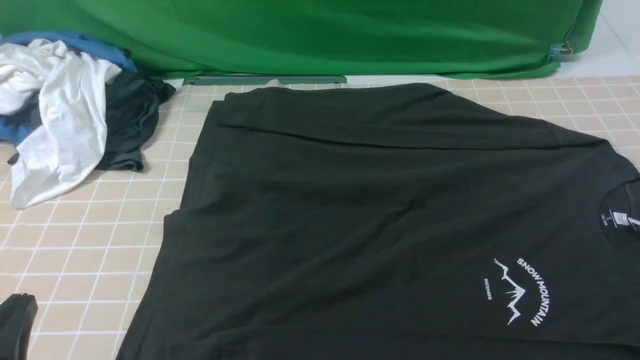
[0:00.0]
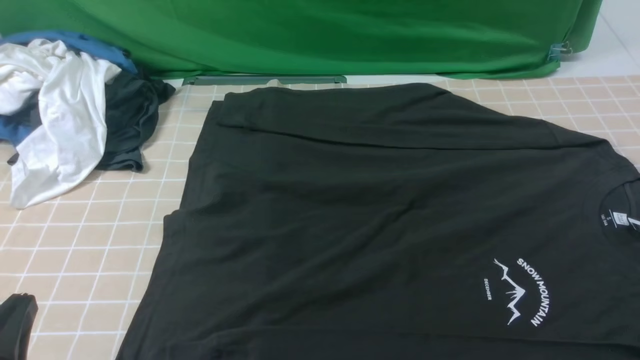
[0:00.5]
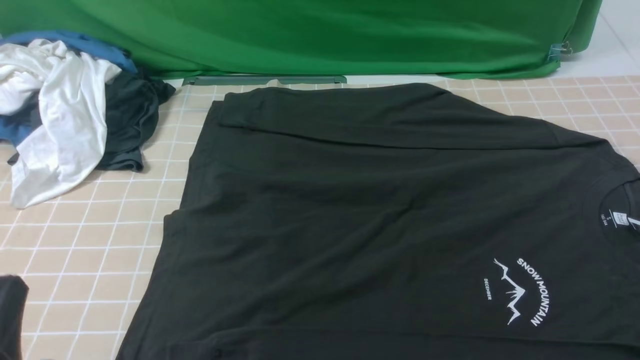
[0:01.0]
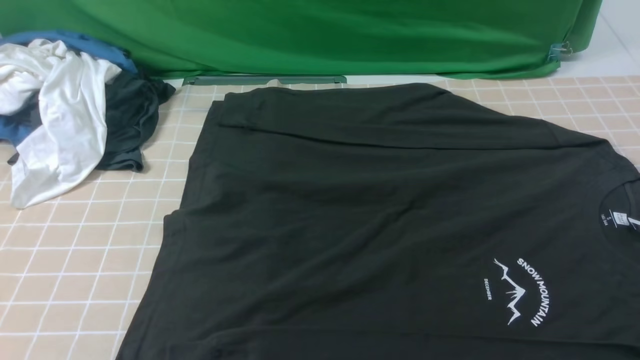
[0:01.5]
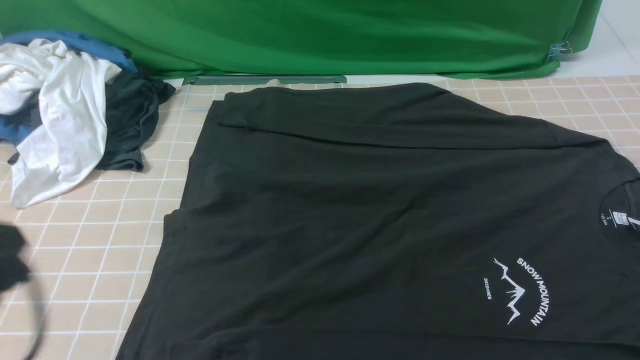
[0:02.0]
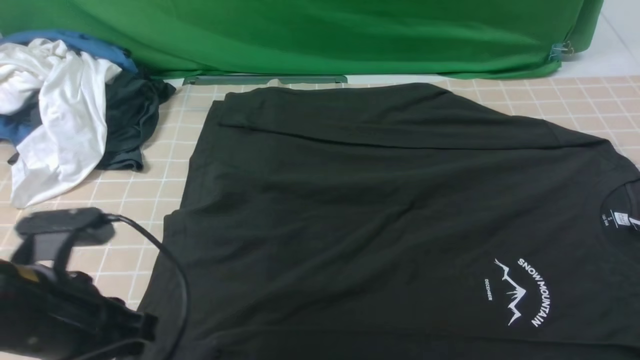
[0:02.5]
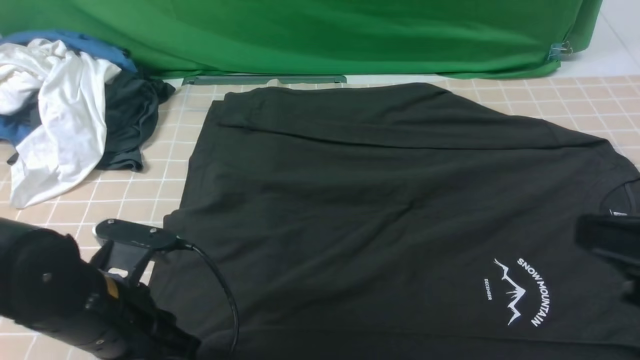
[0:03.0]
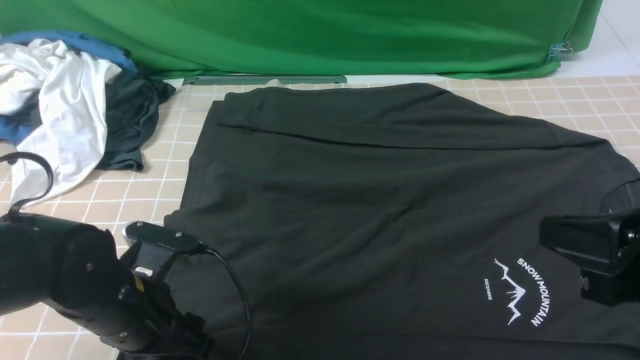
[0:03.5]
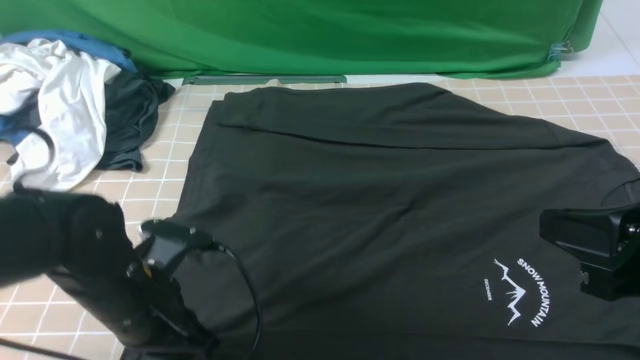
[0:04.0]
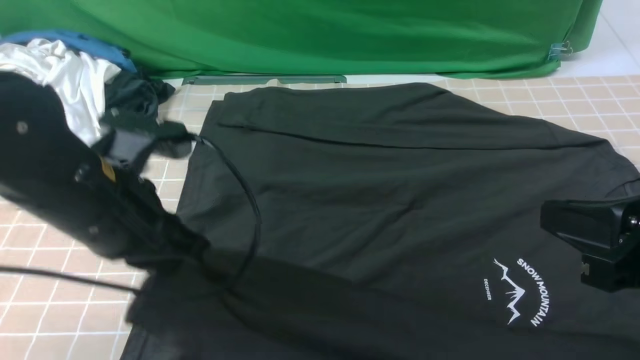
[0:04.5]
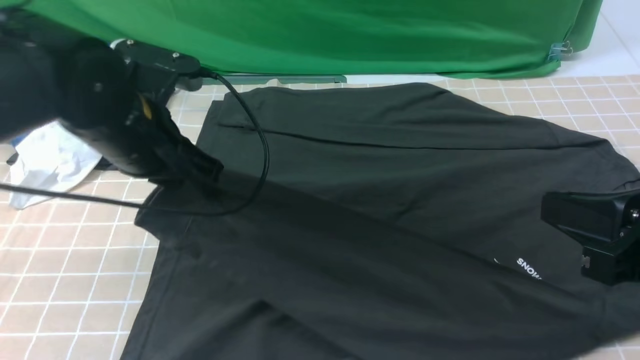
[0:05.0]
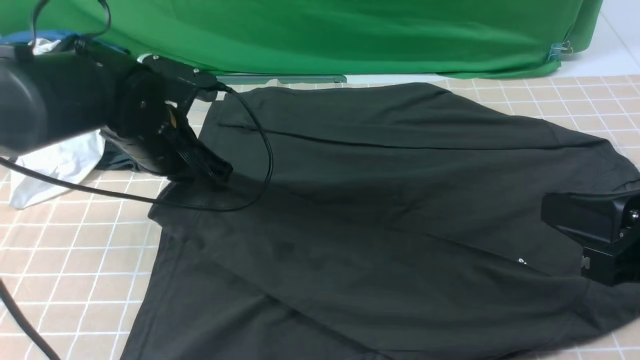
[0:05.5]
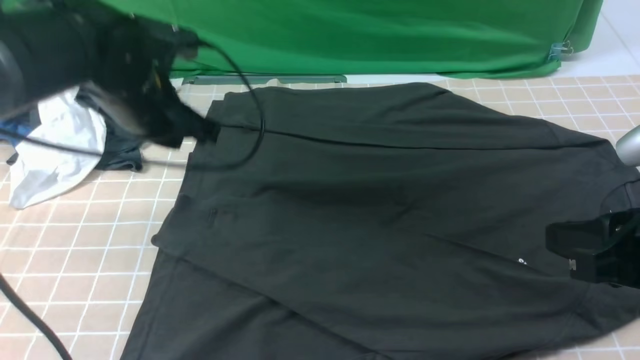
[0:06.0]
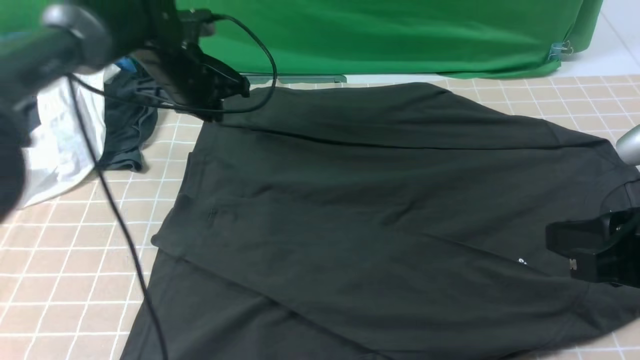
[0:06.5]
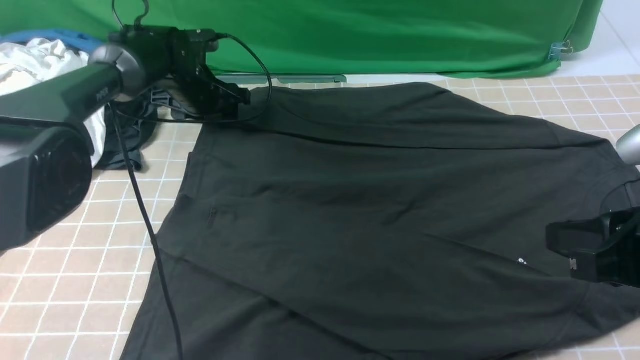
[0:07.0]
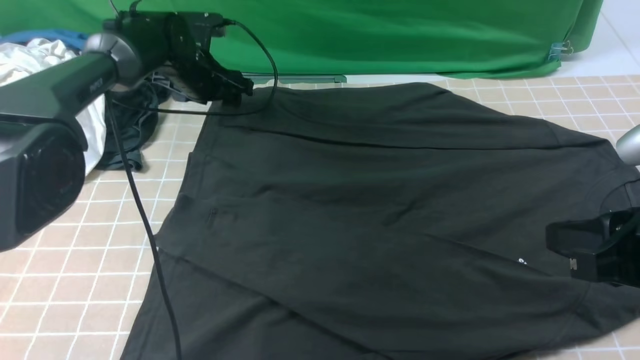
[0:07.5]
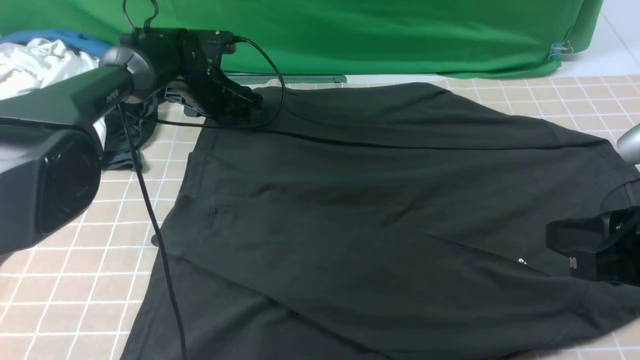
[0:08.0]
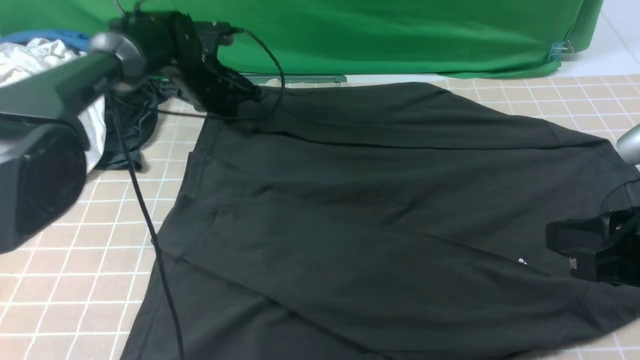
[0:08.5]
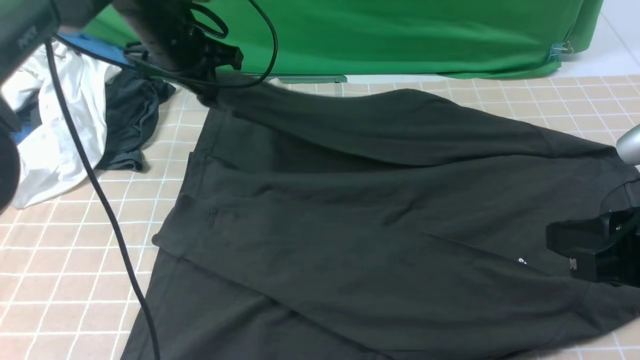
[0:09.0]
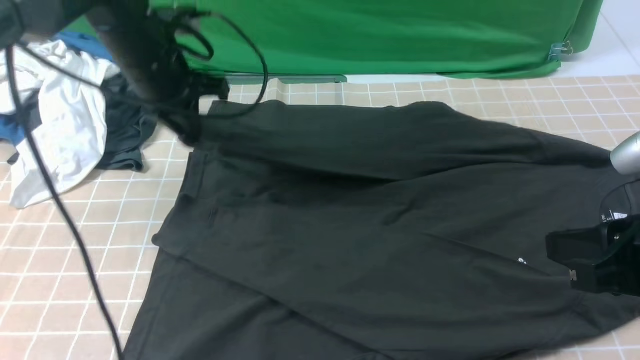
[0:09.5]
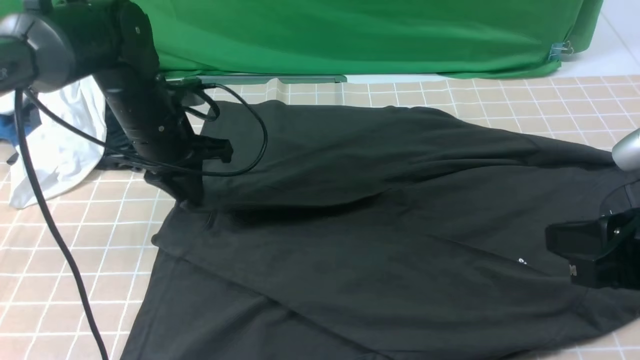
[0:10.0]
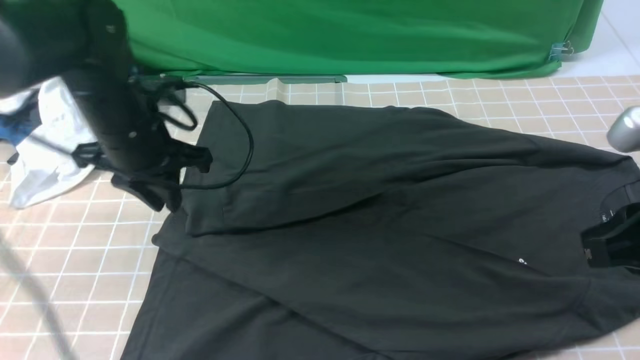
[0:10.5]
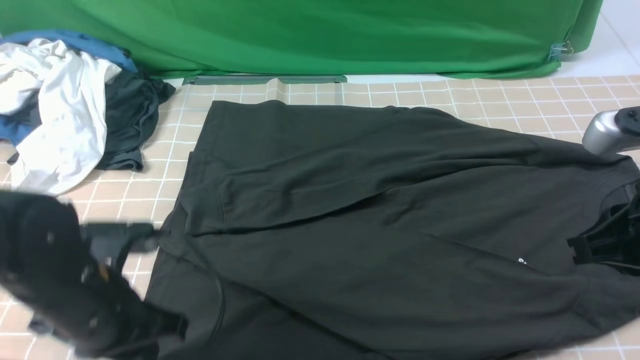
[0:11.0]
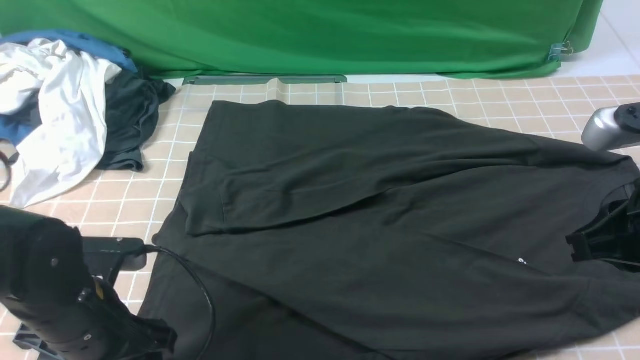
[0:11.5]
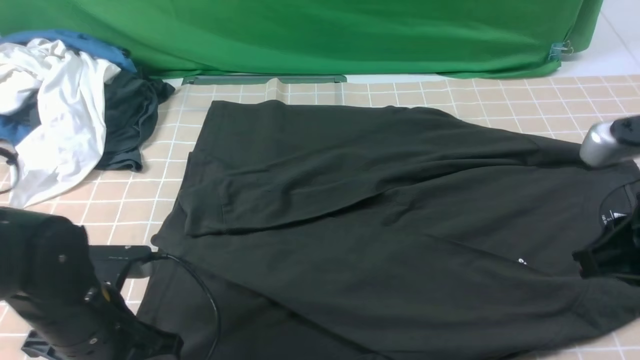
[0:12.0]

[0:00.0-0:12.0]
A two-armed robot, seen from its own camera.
Step, 0.0 to 3.5 s: use the left arm to clamp the cuff closest to it.
Step, 4.0 to 5.5 s: use the left arm to drag and place the cuff at the centered position on the left edge of the fabric.
Step, 6.0 to 8.0 s: use the left arm to clamp the cuff farthest from it.
Step, 8.5 to 10.0 s: use the left arm to drag and drop the cuff onto the cuff closest to the left arm.
0.0 to 2.0 s: The left gripper moves upward, approximately 10 cm.
2.0 to 4.0 s: The right gripper shifts approximately 15 cm upward, forward and to the left, and closes. The left gripper is displaced forward, downward and to the right by approximately 15 cm, and opens and closes again.
4.0 to 6.0 s: The left gripper shifts about 20 cm forward and upward.
6.0 to 8.0 s: The left gripper travels forward and downward by about 20 cm, and opens.
8.0 to 10.0 s: The left gripper travels backward and upward by about 15 cm, and closes.
10.0 to 12.0 s: The left gripper moves backward, about 20 cm, and opens, then closes again.

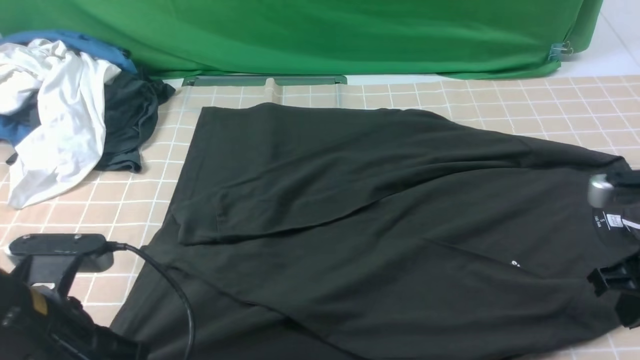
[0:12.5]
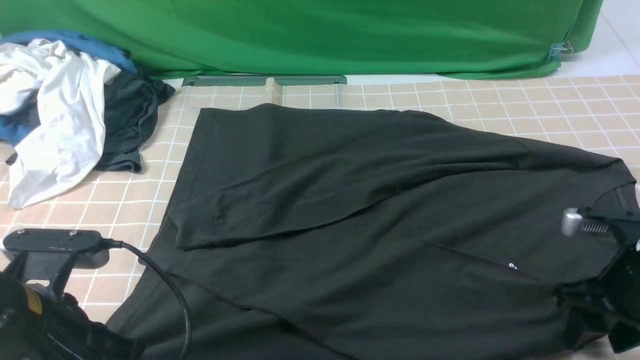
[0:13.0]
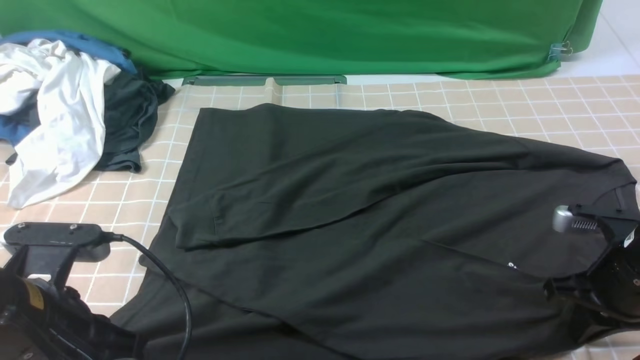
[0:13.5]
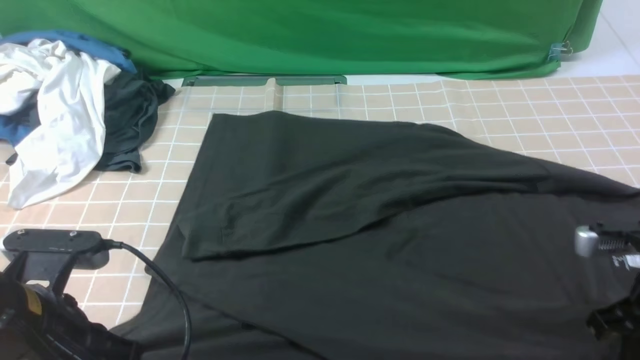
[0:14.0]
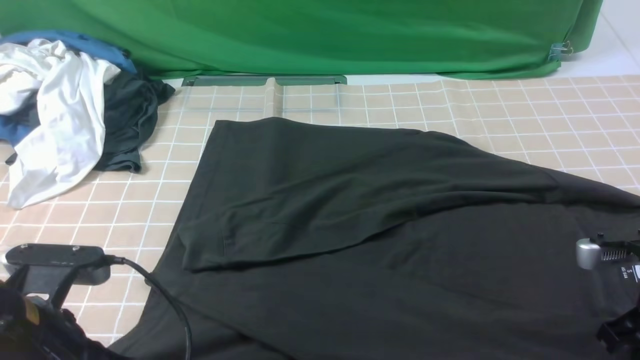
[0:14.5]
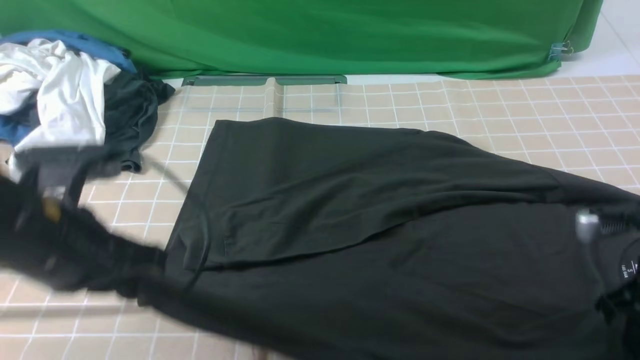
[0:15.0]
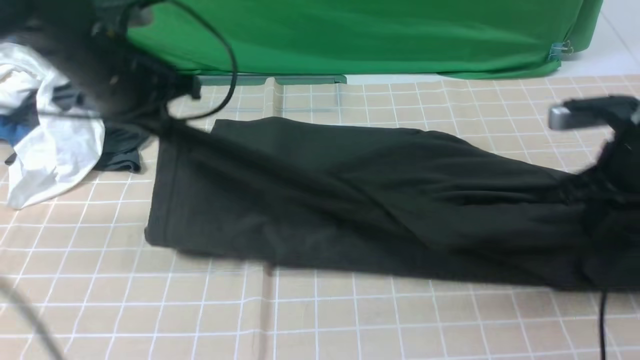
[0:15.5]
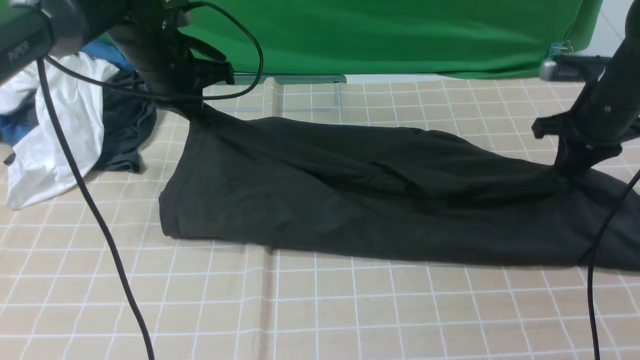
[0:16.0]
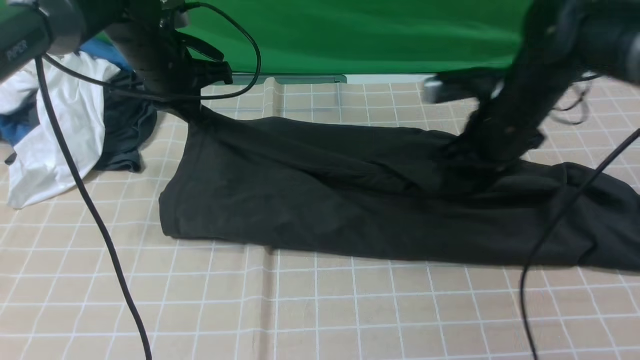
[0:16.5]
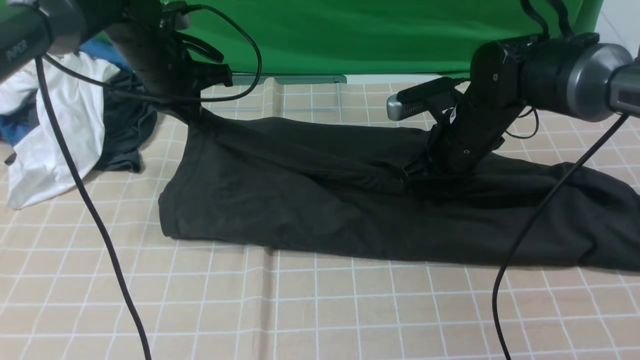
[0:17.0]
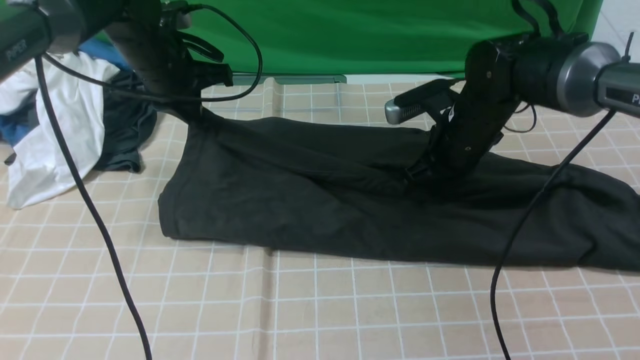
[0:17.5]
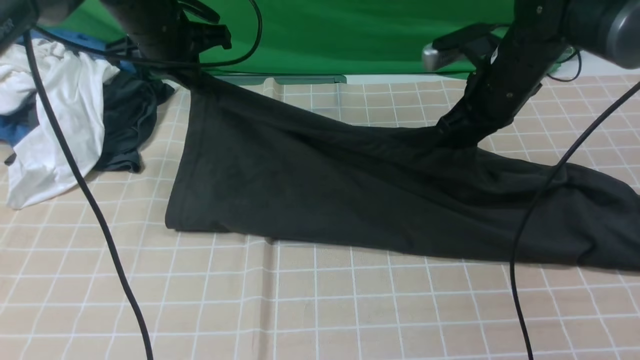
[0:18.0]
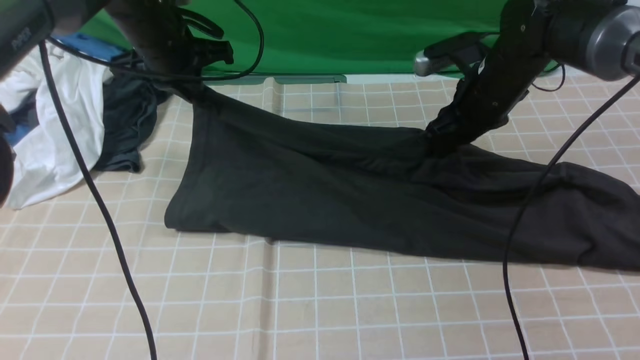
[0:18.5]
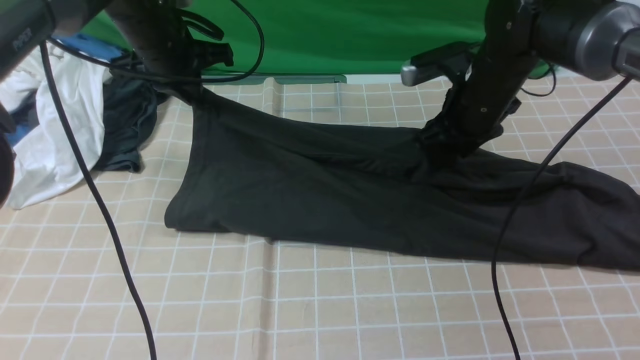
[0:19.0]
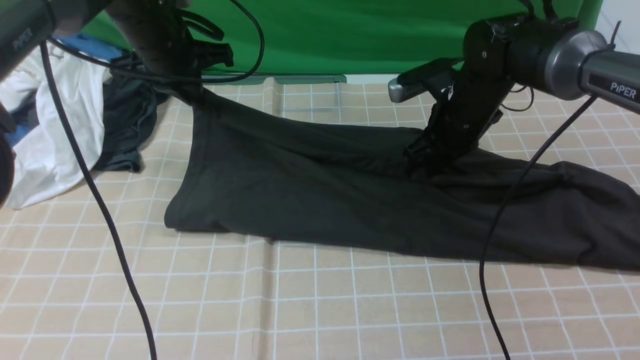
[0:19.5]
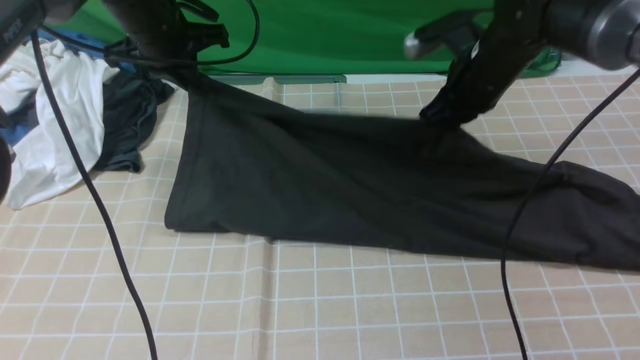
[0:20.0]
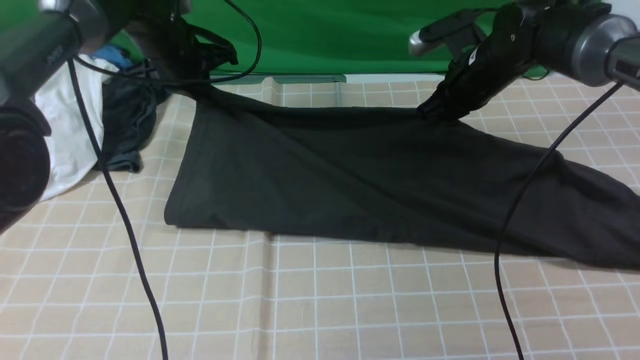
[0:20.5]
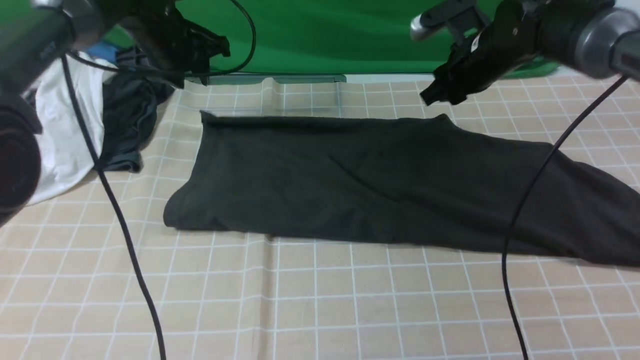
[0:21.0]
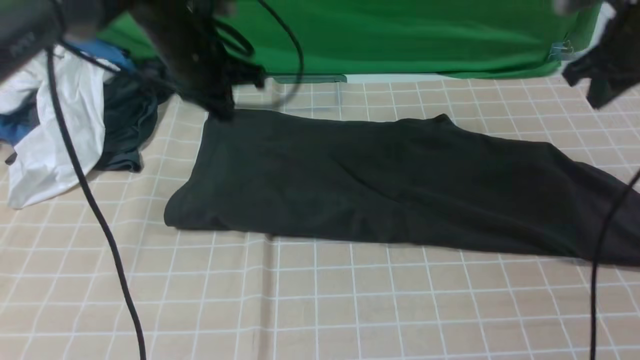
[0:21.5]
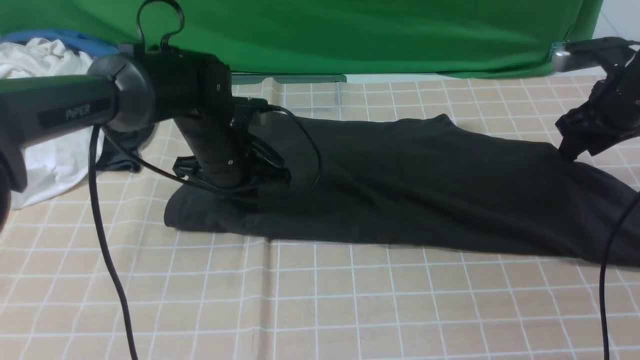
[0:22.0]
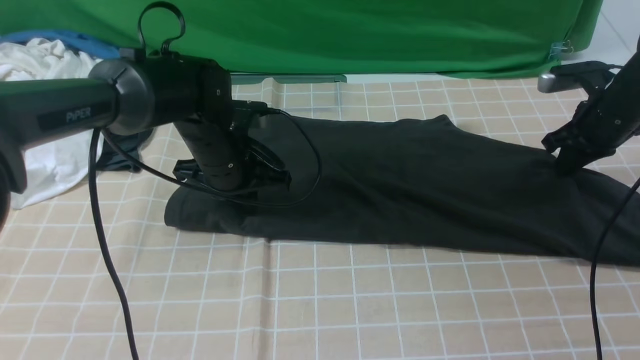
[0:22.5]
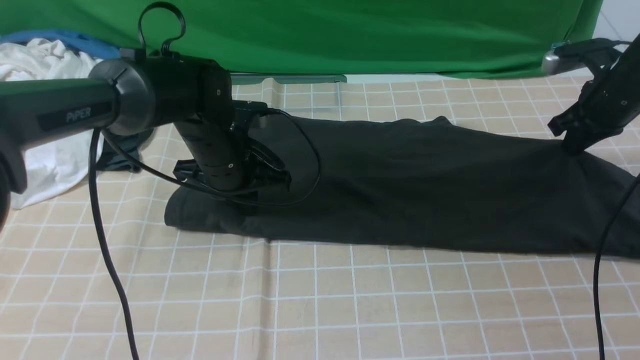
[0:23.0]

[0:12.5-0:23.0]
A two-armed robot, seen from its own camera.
Step, 14.0 to 21.0 s: use both arms to drag the lower edge of the fabric forward and fold it over the upper edge.
12.5 to 14.5 s: The right gripper opens, then closes once more.
14.5 to 16.5 s: The left gripper heads forward, covering approximately 30 cm. Meanwhile the right gripper moves forward and to the left, some 20 cm, and opens.
16.5 to 19.0 s: The right gripper closes and opens again.
19.0 to 21.0 s: The left gripper opens up, while the right gripper changes place by about 5 cm, and closes up.
21.0 to 23.0 s: The right gripper heads to the right, covering about 15 cm, and opens and closes again; the left gripper shifts roughly 15 cm backward, downward and to the right, and closes its fingers.
